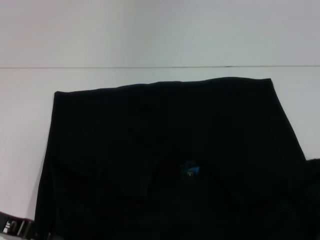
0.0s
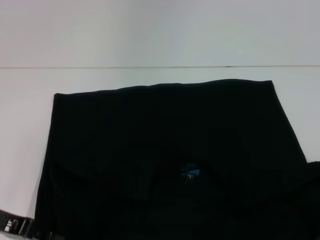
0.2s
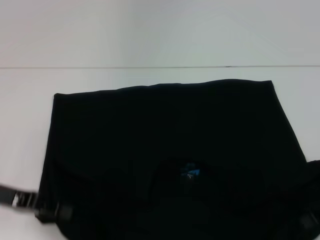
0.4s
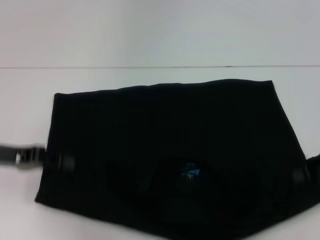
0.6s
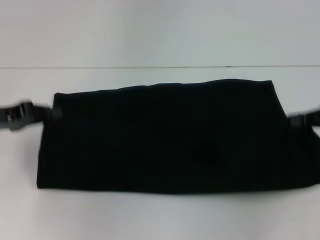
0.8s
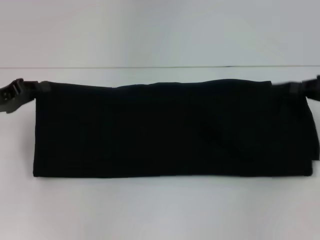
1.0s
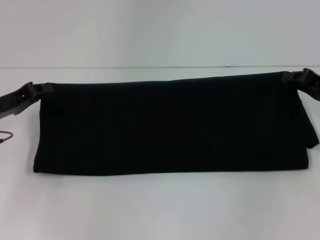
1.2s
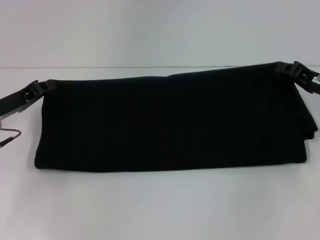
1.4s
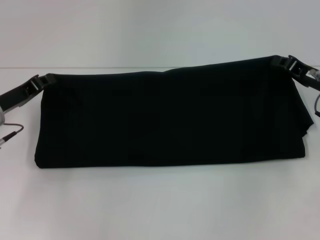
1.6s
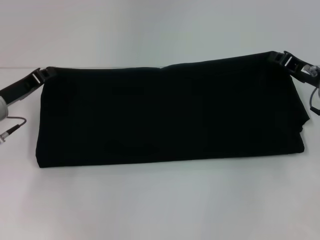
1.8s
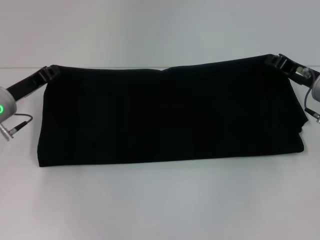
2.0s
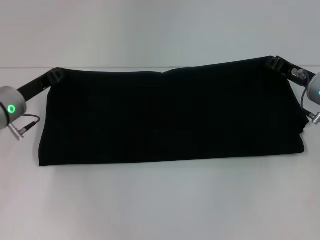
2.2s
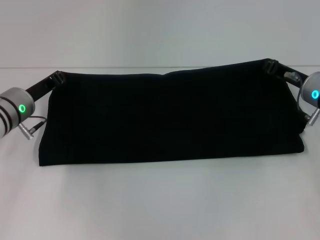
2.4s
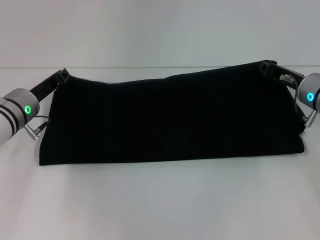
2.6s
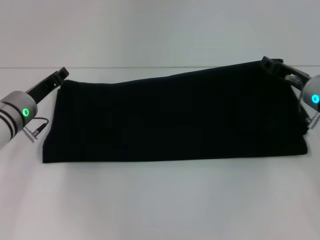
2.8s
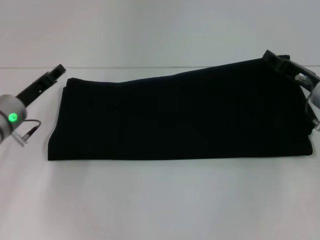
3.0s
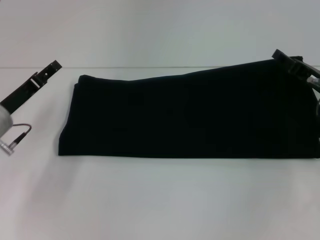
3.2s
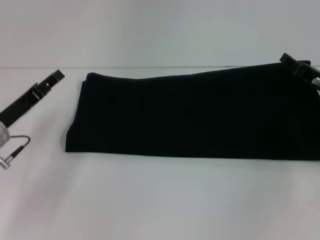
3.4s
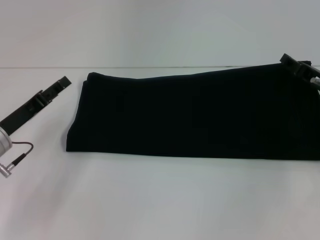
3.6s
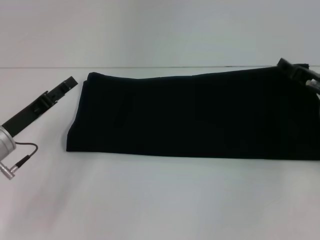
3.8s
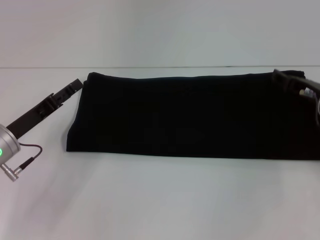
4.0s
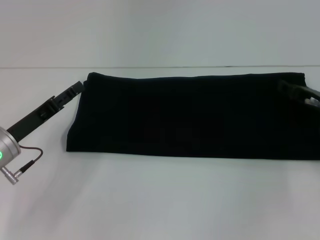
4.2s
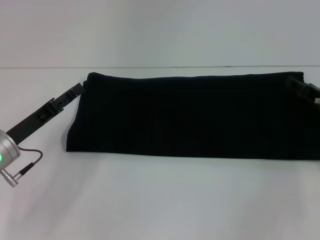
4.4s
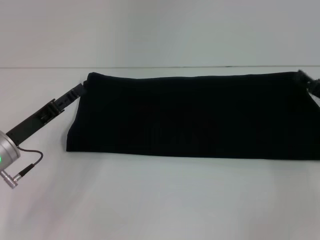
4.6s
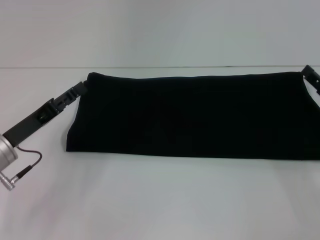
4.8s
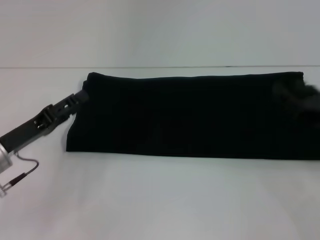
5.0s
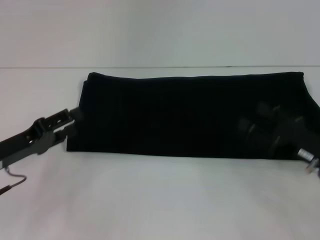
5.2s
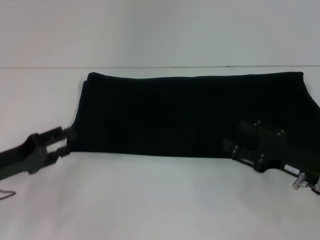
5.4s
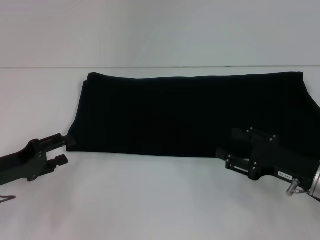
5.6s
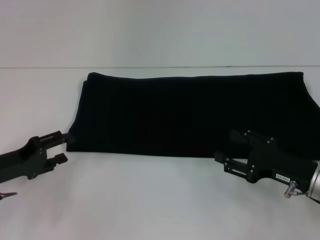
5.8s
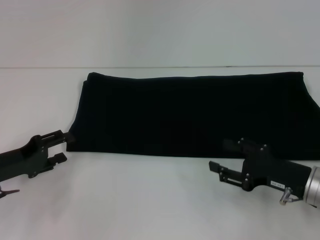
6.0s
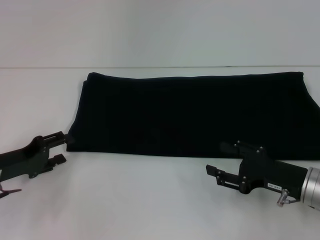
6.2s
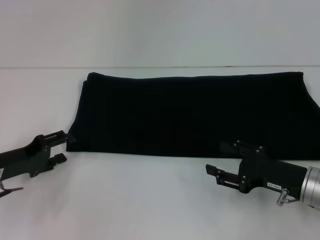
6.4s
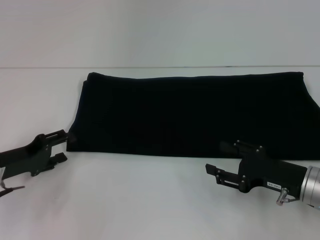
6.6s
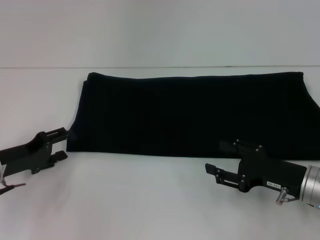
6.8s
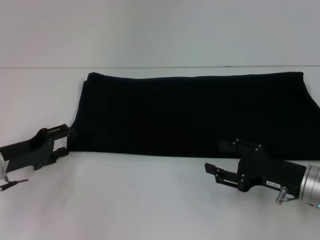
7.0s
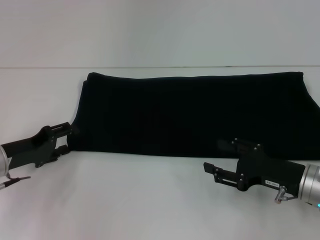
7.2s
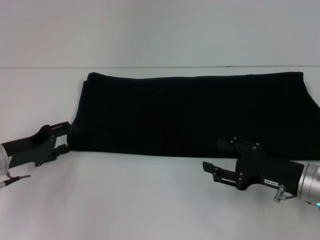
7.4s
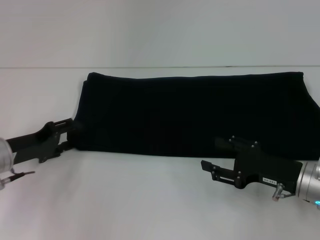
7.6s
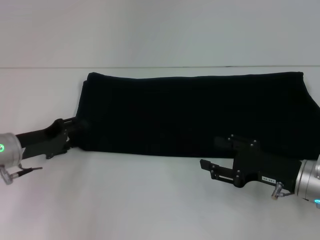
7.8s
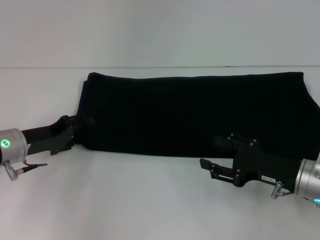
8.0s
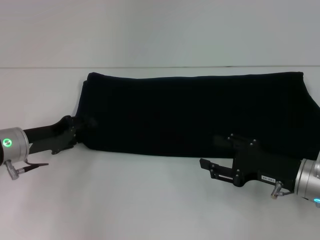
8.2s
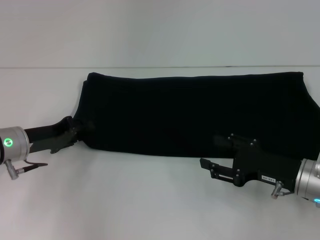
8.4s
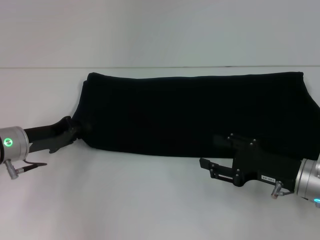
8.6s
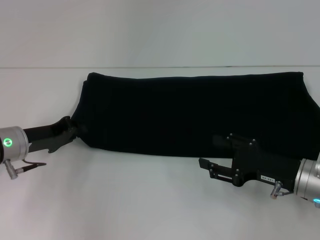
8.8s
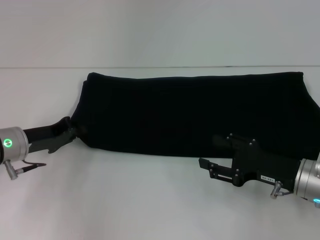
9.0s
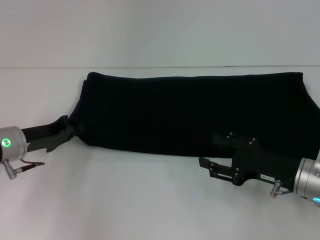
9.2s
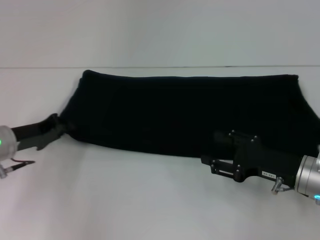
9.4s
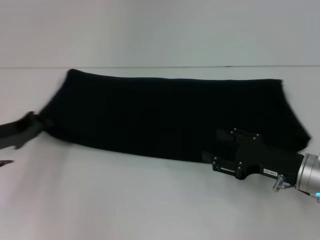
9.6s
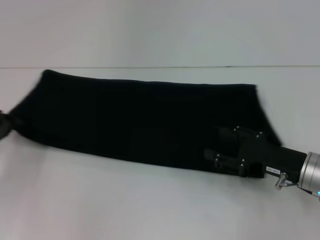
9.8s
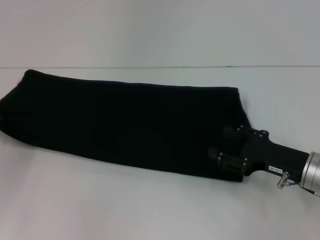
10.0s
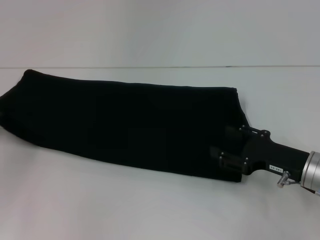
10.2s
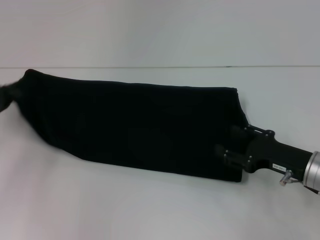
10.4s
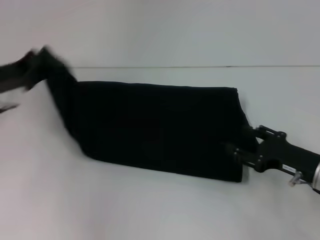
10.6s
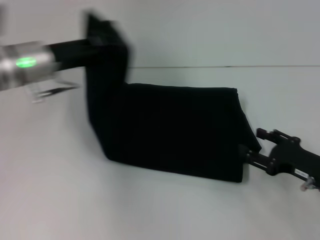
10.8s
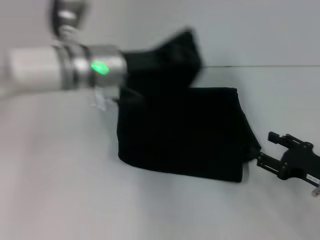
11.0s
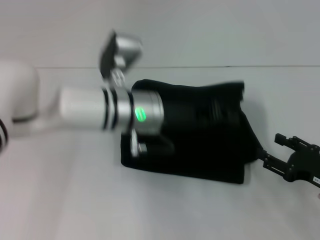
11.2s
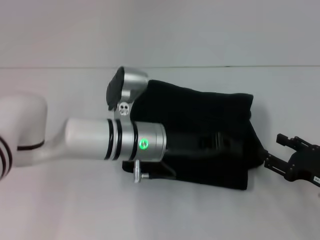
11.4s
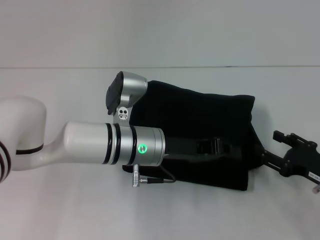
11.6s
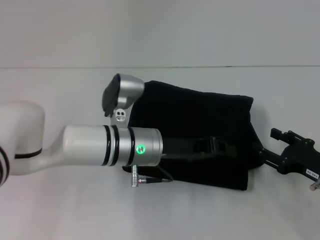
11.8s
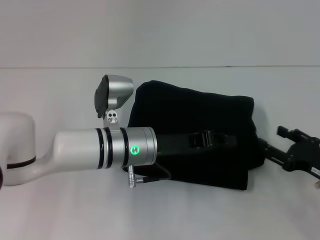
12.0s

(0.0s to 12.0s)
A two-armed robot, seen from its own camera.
Step, 0.4s - 5.0s: Fold the clothes with your right hand.
0.0s - 1.6s: The two grippers go approximately 10 cm forward.
1.6s - 3.0s: The right gripper opens up.
3.0s - 4.4s: The left gripper shifts approximately 5 cm backward, and opens up, while the right gripper opens.
4.4s - 6.0s: The right gripper travels backward and to the left by roughly 10 cm.
6.0s - 7.6s: There are only small adjustments of the grippers.
7.6s - 9.0s: The left gripper closes up.
9.0s - 10.4s: The left gripper goes some 10 cm to the left.
10.4s - 12.0s: The right gripper ends up about 5 cm from where it was. The left gripper travels to the right by approximately 30 cm.

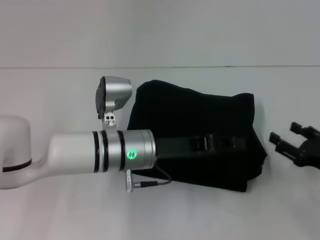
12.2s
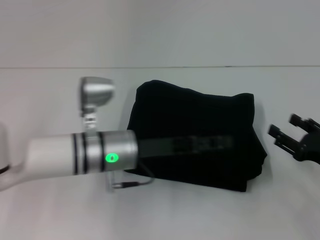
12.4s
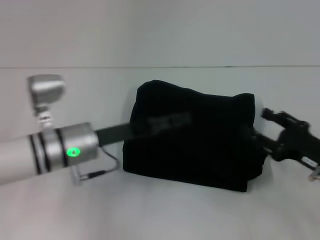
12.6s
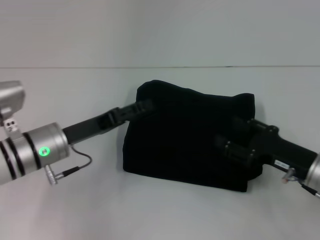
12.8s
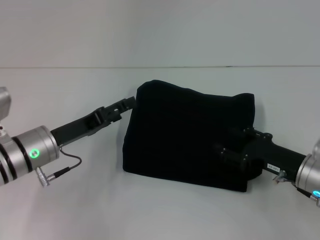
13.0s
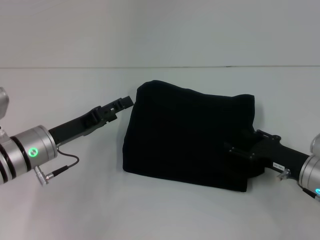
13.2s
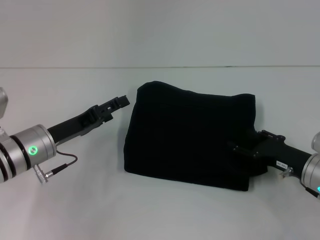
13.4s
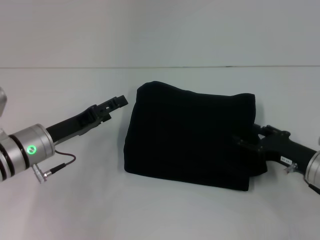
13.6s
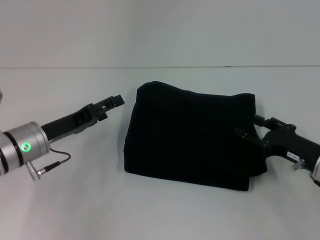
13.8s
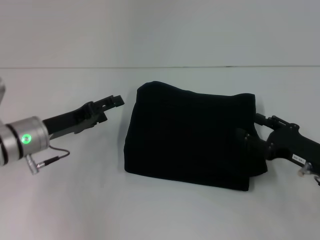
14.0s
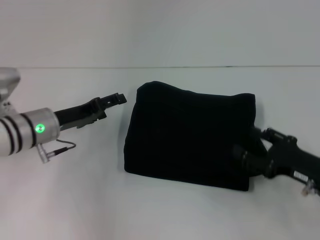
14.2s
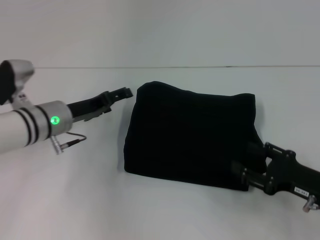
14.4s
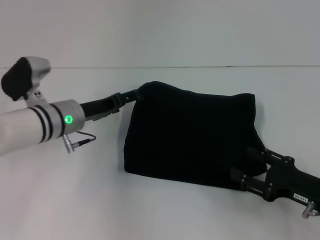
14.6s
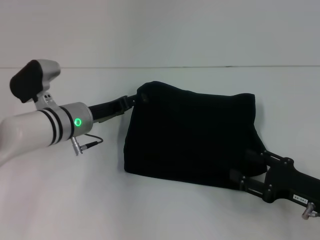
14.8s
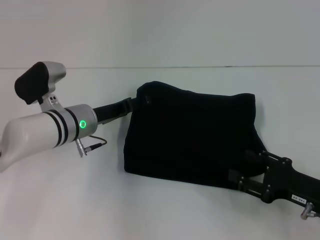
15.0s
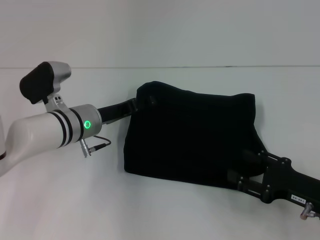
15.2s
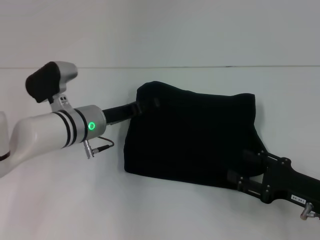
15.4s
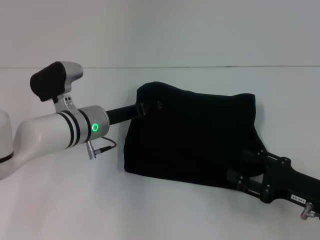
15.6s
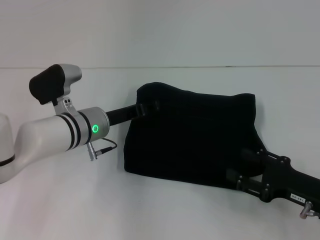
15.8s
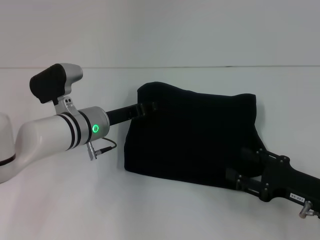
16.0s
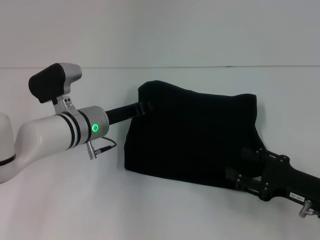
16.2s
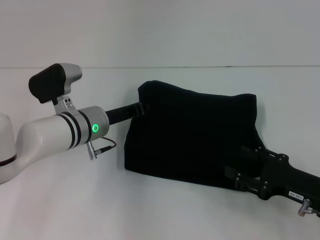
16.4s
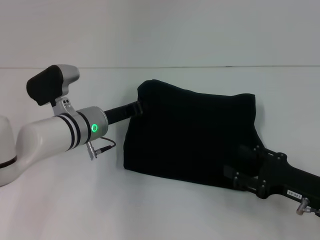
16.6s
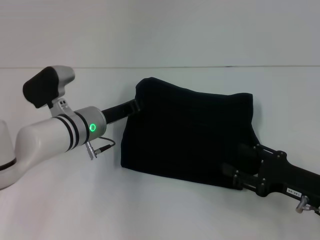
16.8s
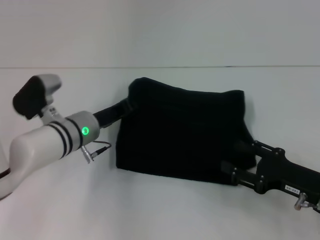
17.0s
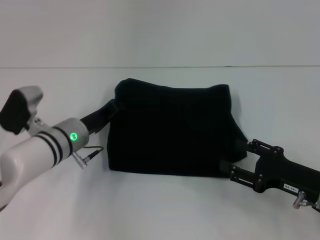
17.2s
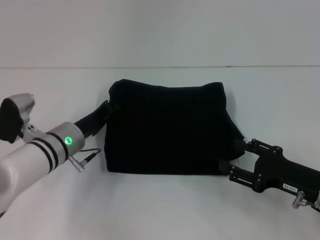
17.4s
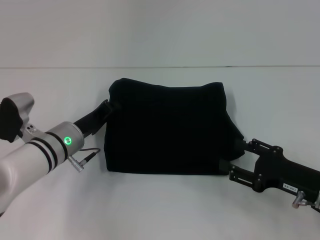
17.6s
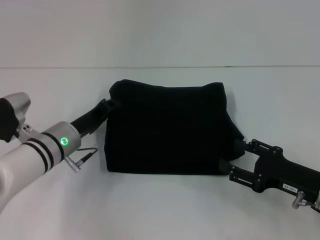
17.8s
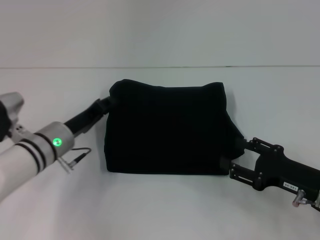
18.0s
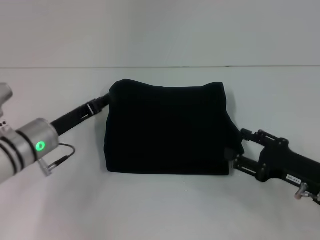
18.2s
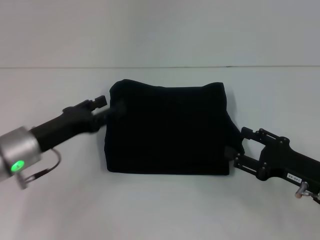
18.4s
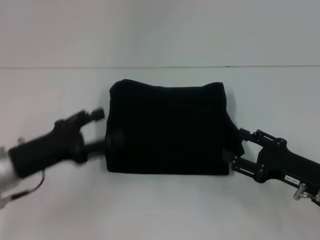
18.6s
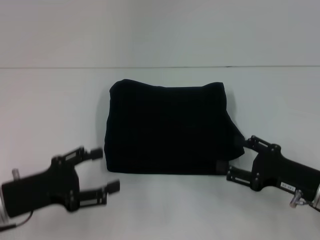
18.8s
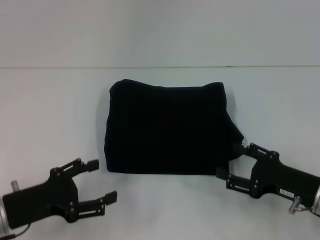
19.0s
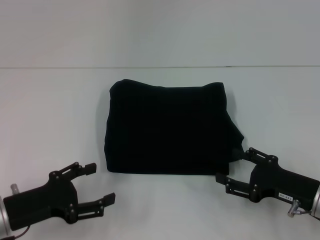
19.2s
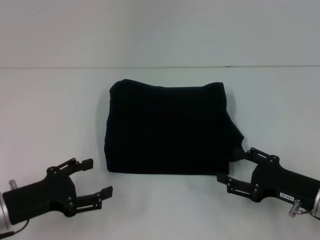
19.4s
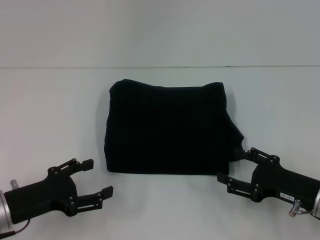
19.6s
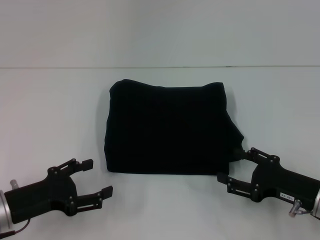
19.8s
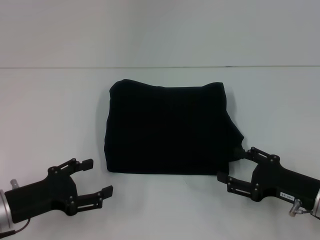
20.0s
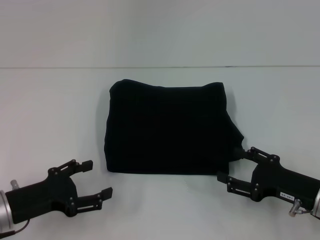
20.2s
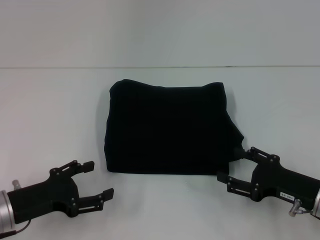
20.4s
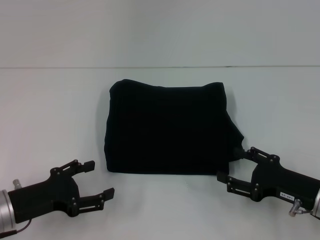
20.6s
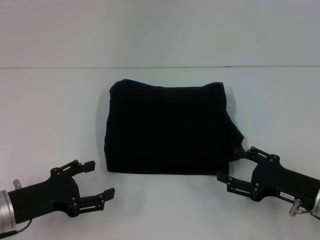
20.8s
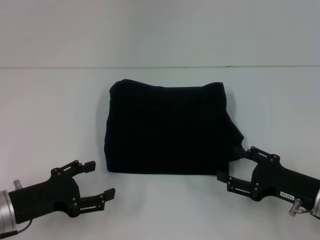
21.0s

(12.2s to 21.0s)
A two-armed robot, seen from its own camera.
12.2s - 13.6s: The left gripper heads to the left, covering roughly 15 cm, and opens. Meanwhile the right gripper goes some 5 cm to the left.
13.6s - 15.2s: The right gripper goes some 5 cm backward. The left gripper heads to the right and forward, covering about 10 cm.
15.2s - 16.6s: The left gripper closes its fingers.
16.6s - 18.0s: The left gripper moves to the left, roughly 5 cm.
18.0s - 19.6s: The left gripper is displaced backward and to the left by roughly 15 cm, and opens.
19.6s - 21.0s: Both grippers stay put.
